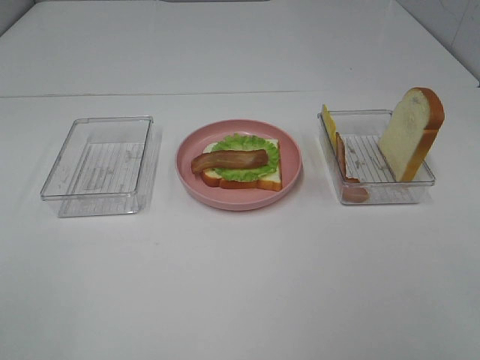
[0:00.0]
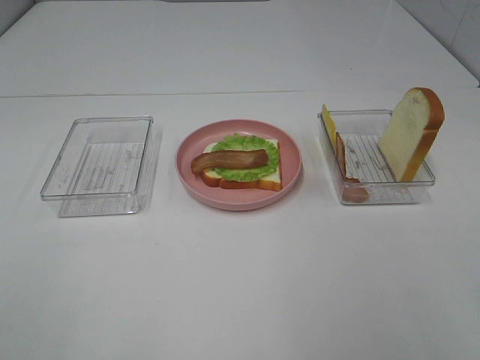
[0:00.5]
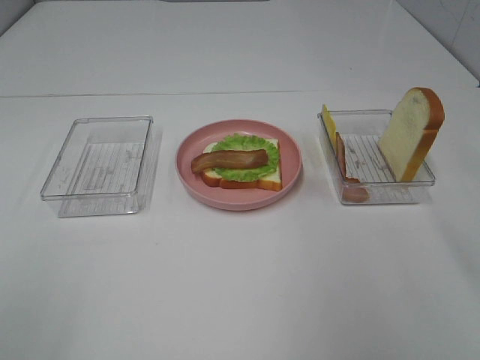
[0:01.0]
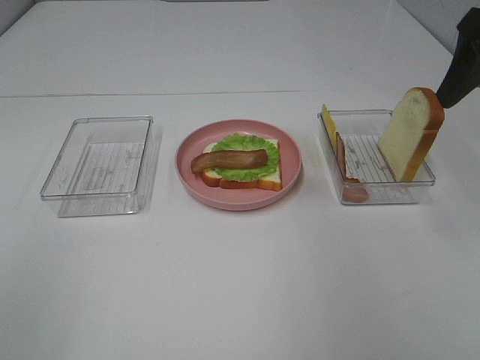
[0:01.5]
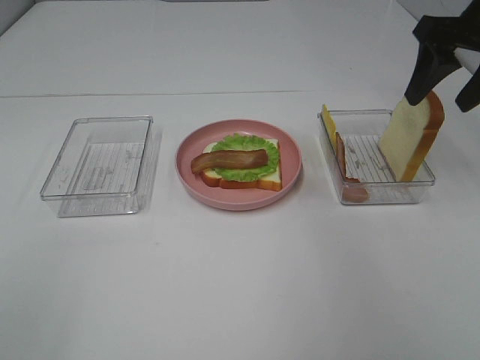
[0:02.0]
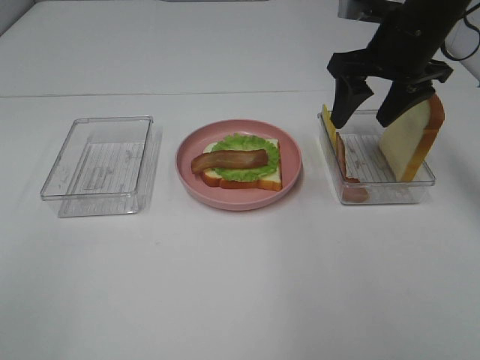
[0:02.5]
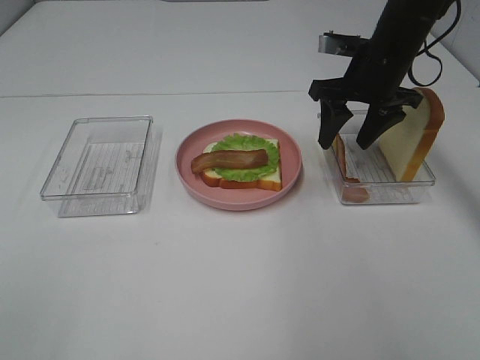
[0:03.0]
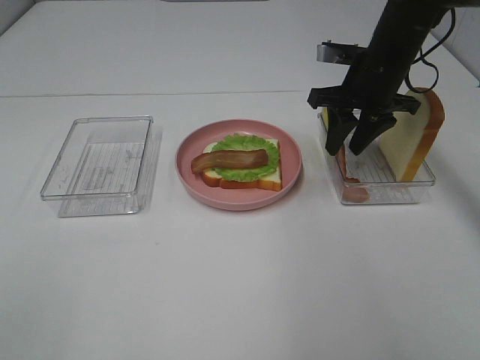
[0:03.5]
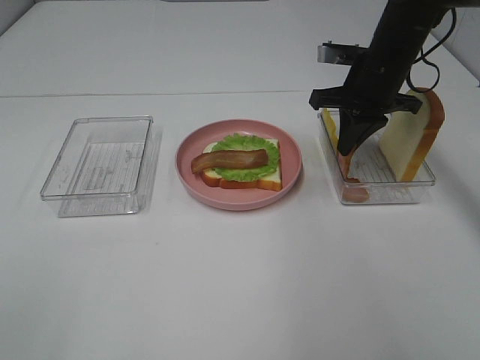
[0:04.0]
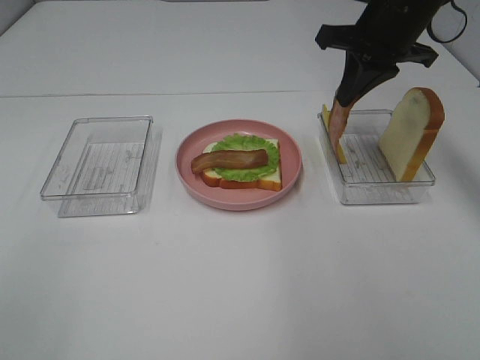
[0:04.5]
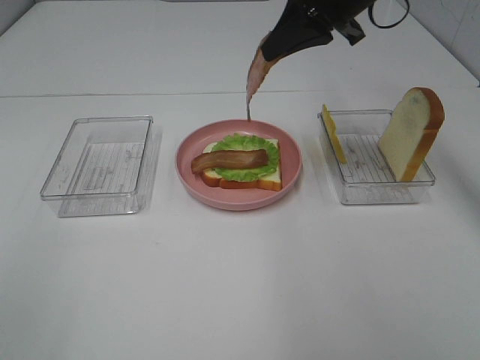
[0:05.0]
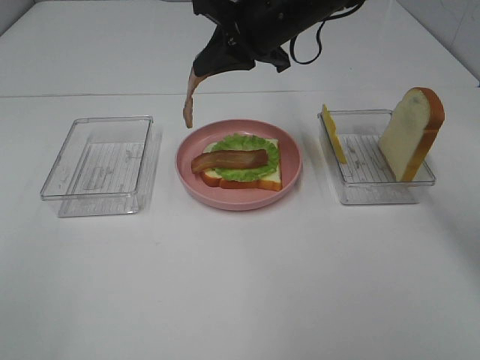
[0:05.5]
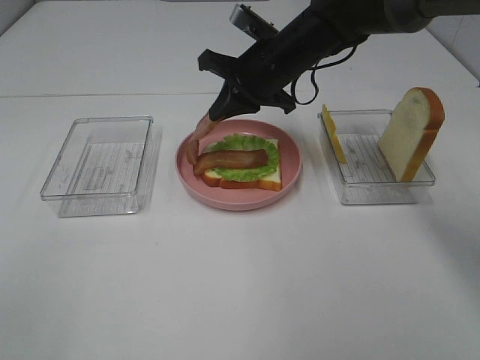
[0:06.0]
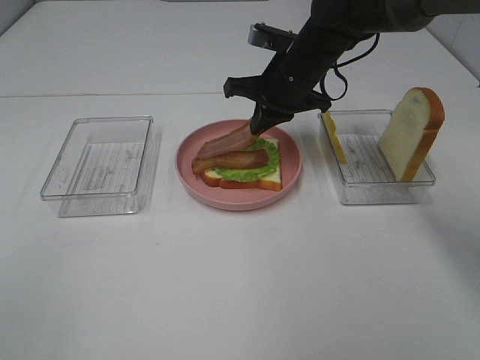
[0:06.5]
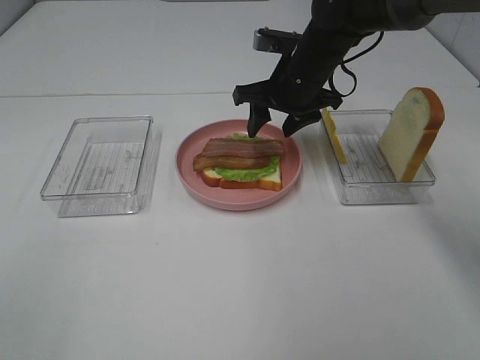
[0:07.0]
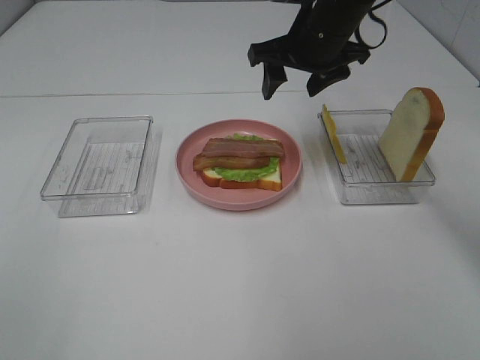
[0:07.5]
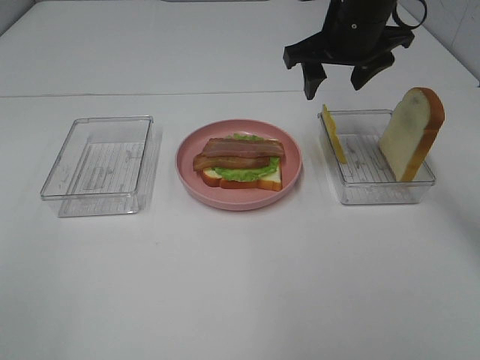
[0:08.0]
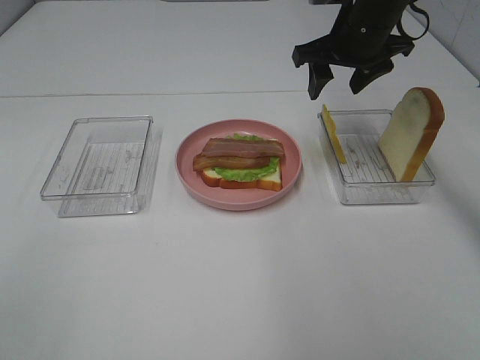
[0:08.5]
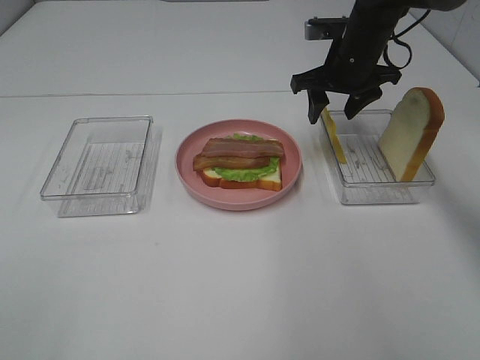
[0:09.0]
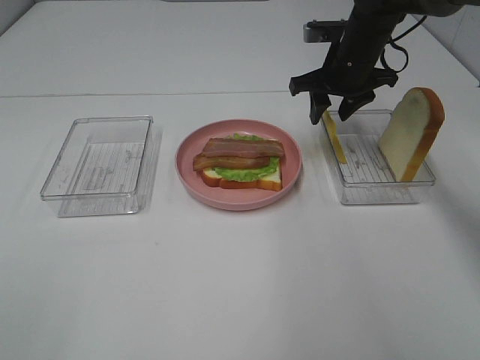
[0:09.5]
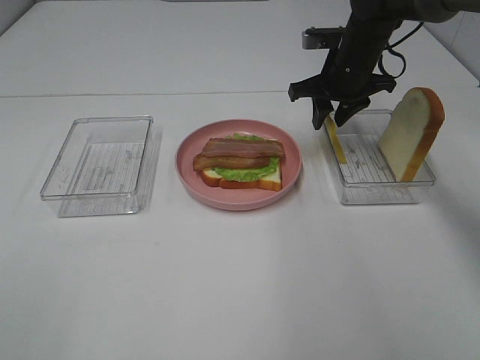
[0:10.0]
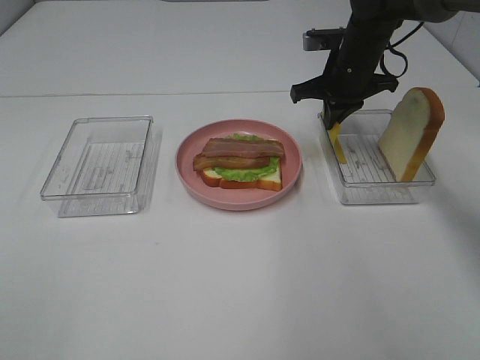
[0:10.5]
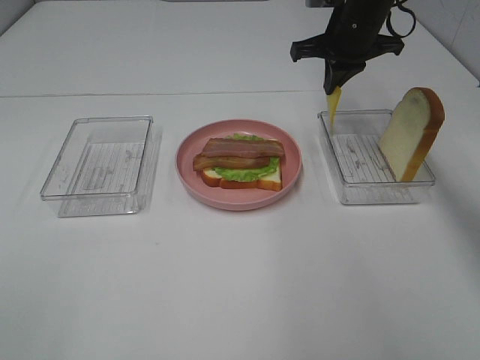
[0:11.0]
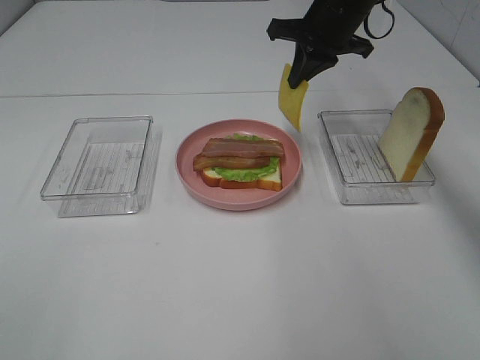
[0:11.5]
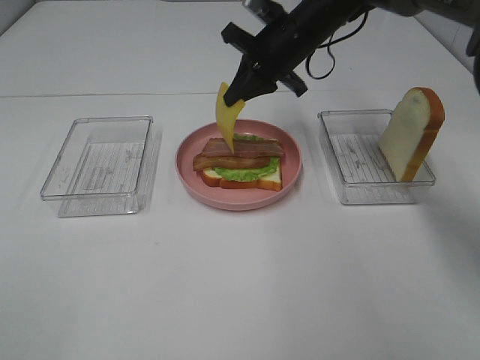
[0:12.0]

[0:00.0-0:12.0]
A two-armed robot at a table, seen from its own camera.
Task of the whole recording: Make sandwiches.
Step, 0:00.0 to 0:04.0: Right hand:grab the bacon.
Step, 0:04.5 to 0:07.0: Right hand:place bacon on bacon.
Step, 0:07.5 to 0:10.5: Right hand:grab the cheese slice.
0:00.0 to 0:02.0: The right gripper heads forward, covering roughly 40 cm.
0:02.0 to 0:04.0: The right gripper goes approximately 15 cm downward, to the left and forward, and closes its fingers.
0:04.0 to 0:06.0: The right gripper goes roughly 10 cm to the left.
0:06.0 to 0:08.0: The right gripper heads to the right and upward, covering approximately 10 cm, and opens.
0:08.0 to 0:10.0: The right gripper goes about 10 cm downward and forward.
0:10.0 to 0:12.0: The right gripper shifts some 10 cm to the left, and closes.

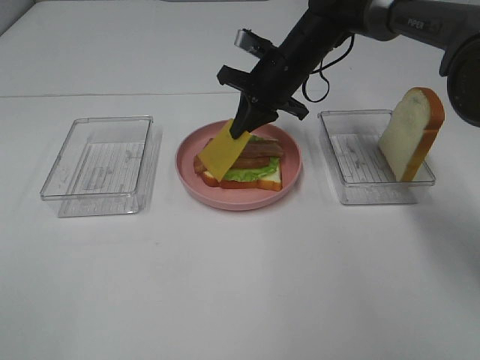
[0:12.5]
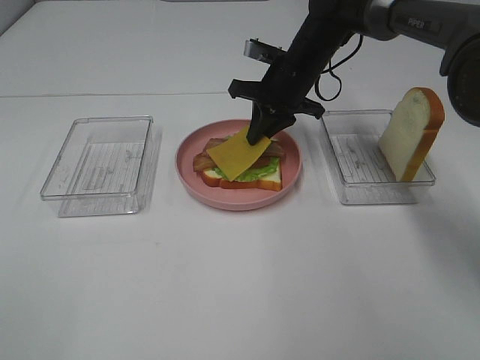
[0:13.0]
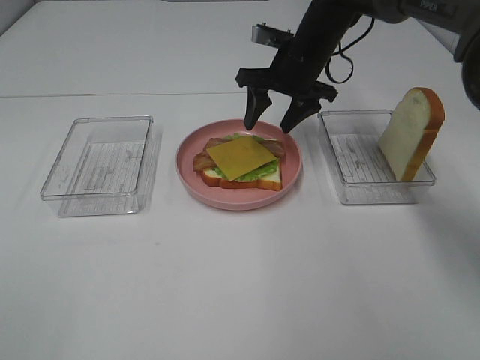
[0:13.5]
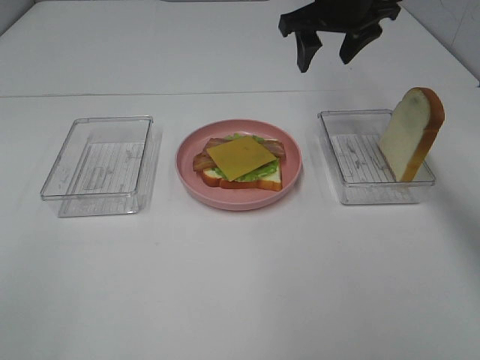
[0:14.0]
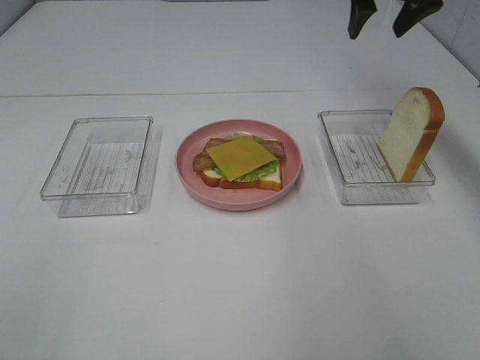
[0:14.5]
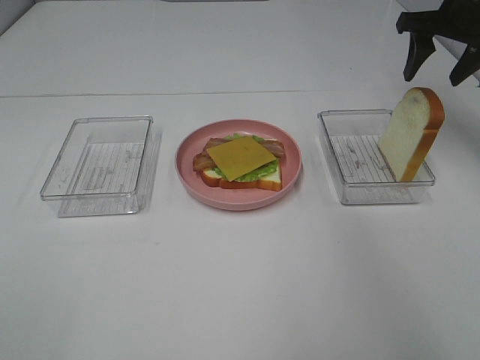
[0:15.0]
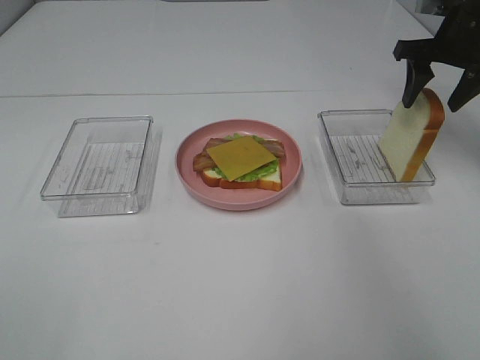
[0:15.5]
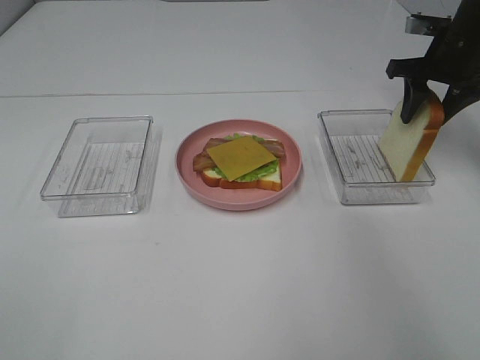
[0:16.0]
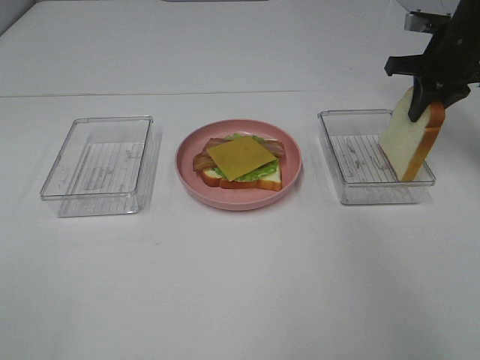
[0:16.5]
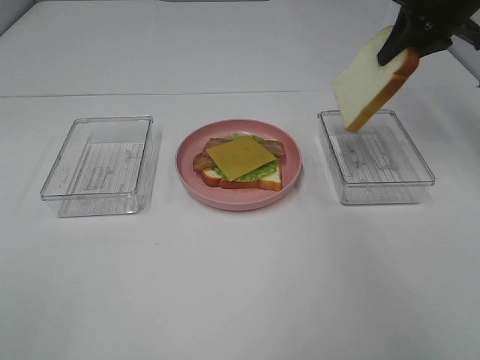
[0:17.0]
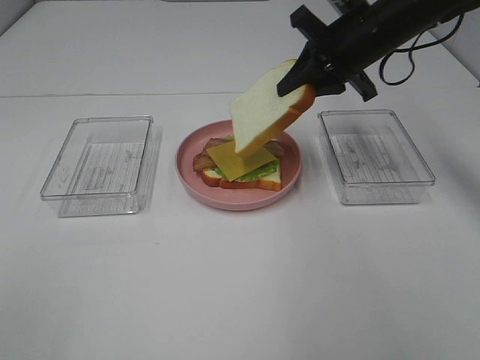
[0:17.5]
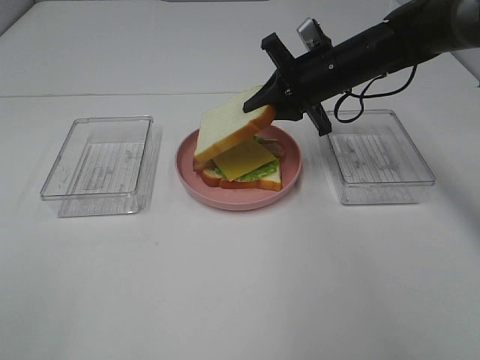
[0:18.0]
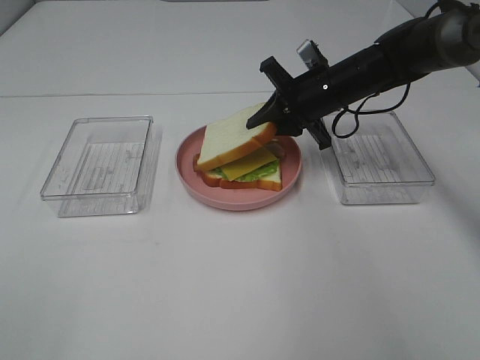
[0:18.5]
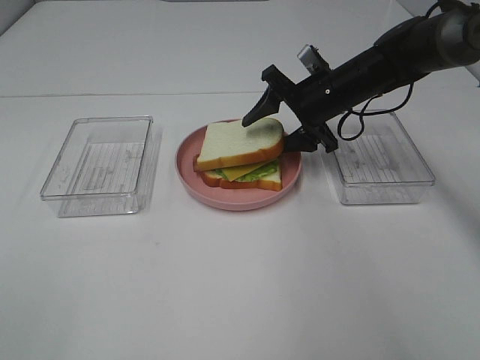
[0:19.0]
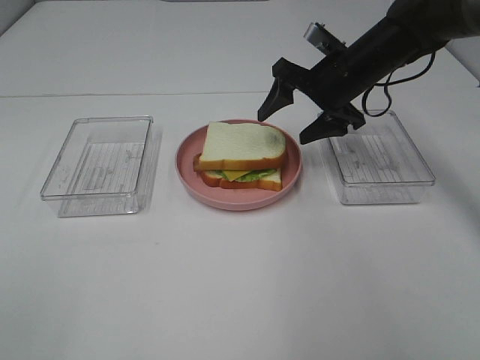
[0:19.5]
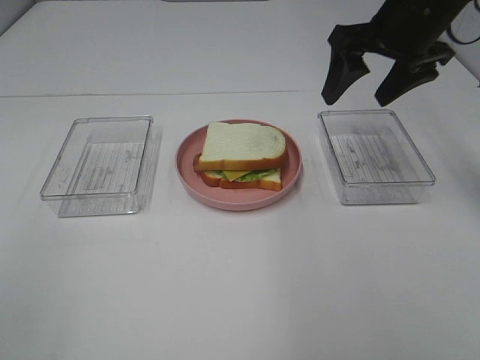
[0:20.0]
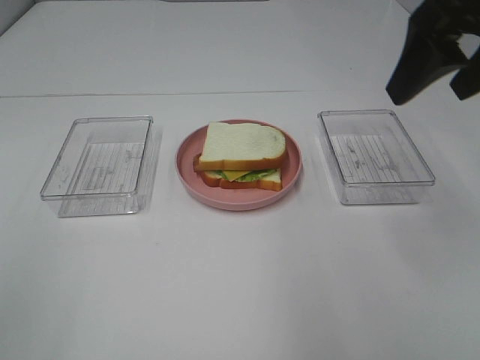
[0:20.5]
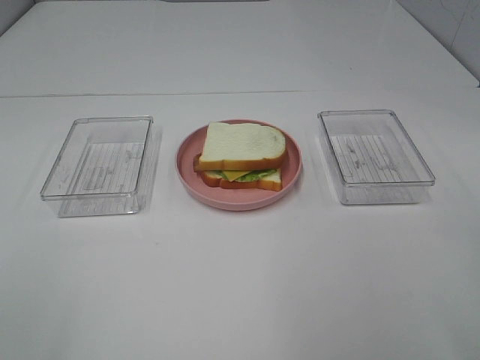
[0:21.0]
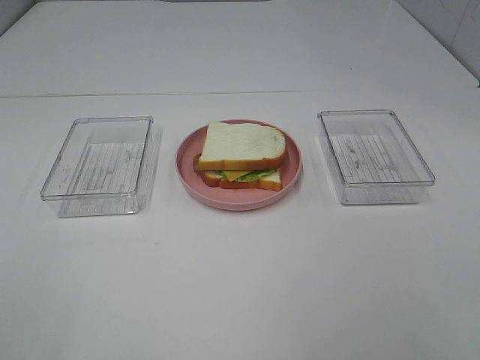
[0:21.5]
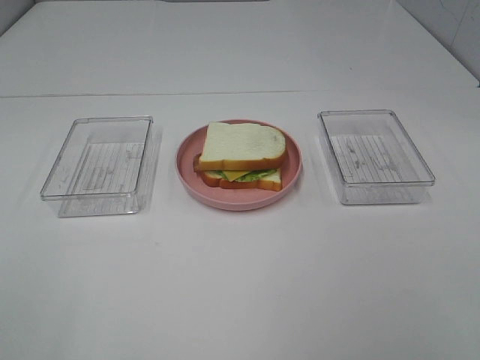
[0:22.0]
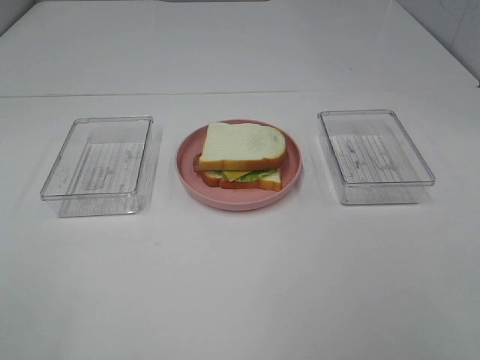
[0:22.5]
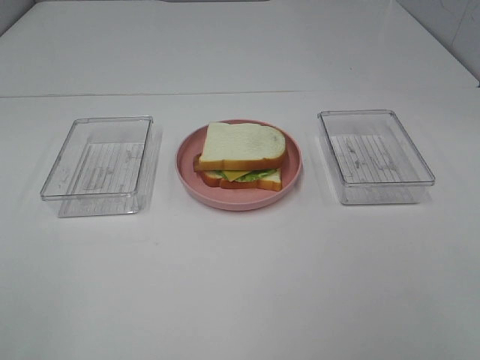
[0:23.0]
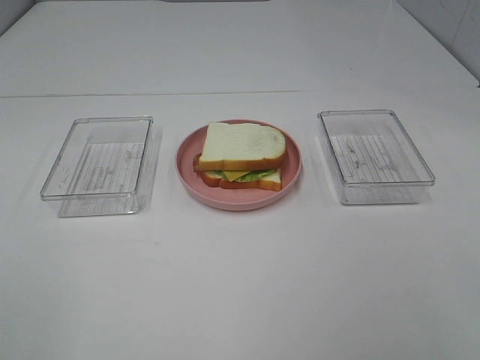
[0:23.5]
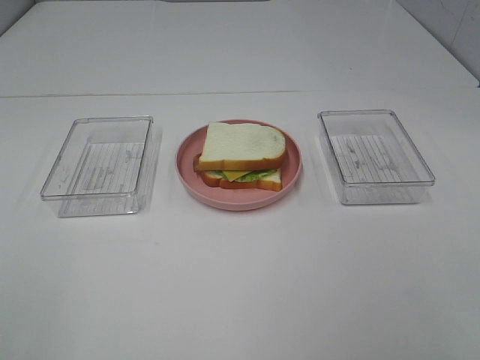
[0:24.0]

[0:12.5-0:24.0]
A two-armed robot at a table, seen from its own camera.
Task of the whole recording: Make sandwiches.
Step, 0:14.0 to 0:16.5: Right hand:grab the bread slice.
Step, 0:17.0 to 0:19.5: Right hand:place the bread slice on the cheese slice.
0:12.5 to 0:14.5: The right gripper moves upward and to the right, approximately 20 cm, and opens.
0:14.5 to 0:16.5: The right gripper moves downward and to the right, some 10 cm, and closes up.
0:16.5 to 0:18.5: The right gripper travels to the left and downward by roughly 15 cm.
0:18.5 to 0:20.0: The right gripper moves upward and backward, roughly 15 cm, and opens up.
0:20.0 to 0:22.0: The right gripper moves backward, roughly 35 cm.

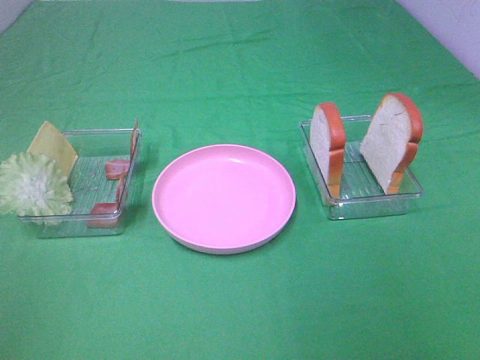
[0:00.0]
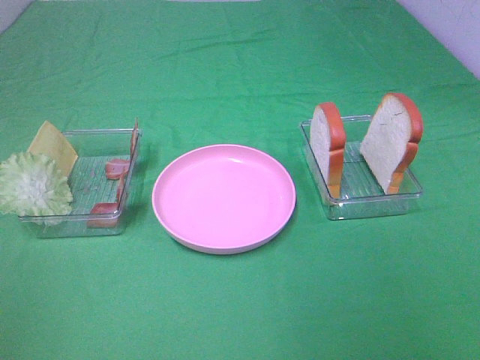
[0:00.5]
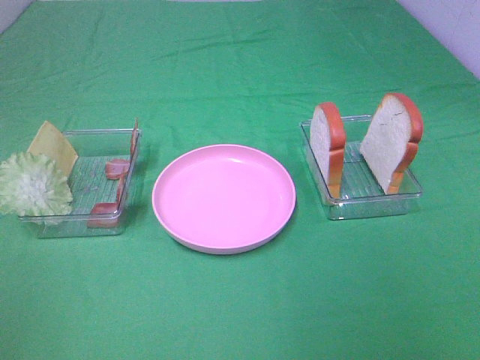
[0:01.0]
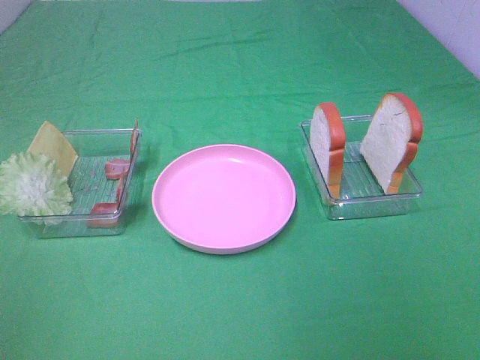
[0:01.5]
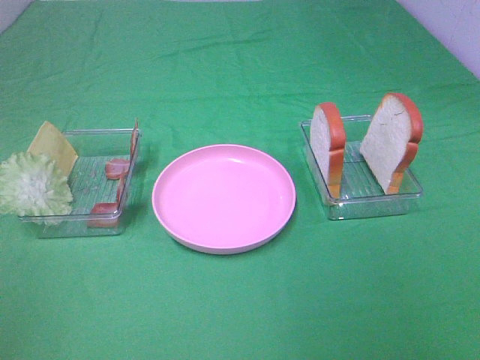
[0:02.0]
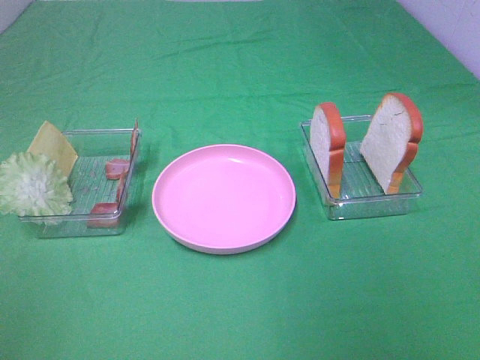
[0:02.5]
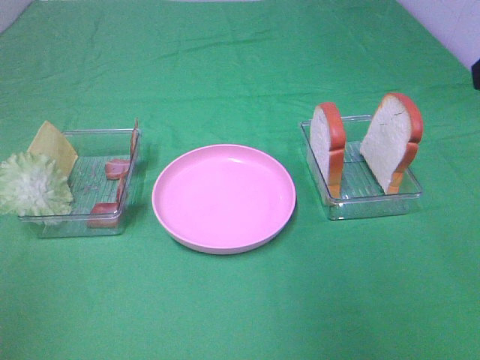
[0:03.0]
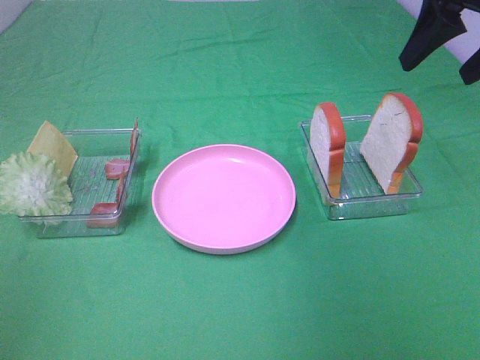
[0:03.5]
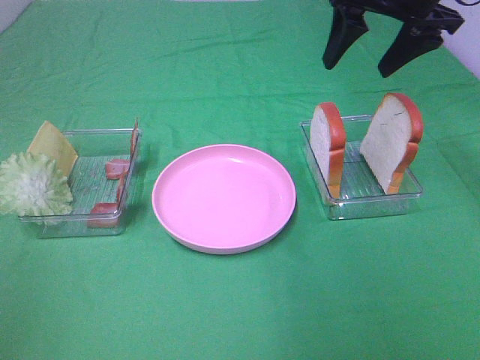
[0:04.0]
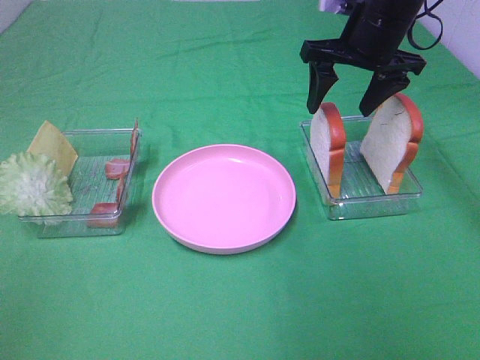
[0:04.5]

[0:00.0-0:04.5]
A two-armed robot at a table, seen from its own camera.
Task of the whole recording: Make sandwiches.
0:00.0 to 0:02.0: Both grippers stay put.
0:02.0 to 0:04.5: The right gripper shifts approximately 40 cm forward.
